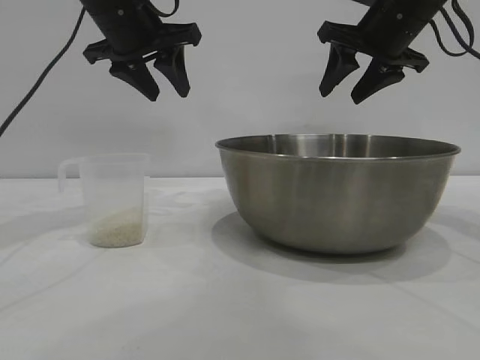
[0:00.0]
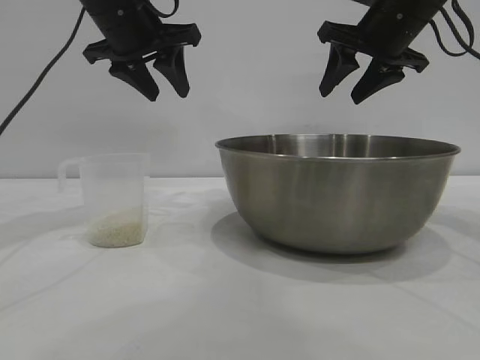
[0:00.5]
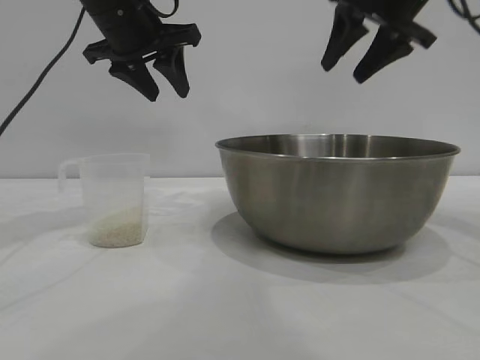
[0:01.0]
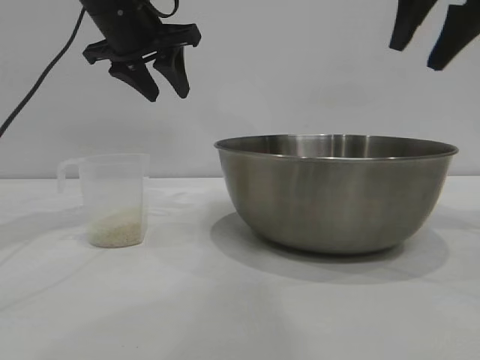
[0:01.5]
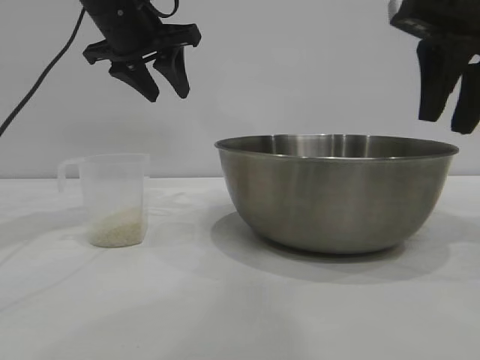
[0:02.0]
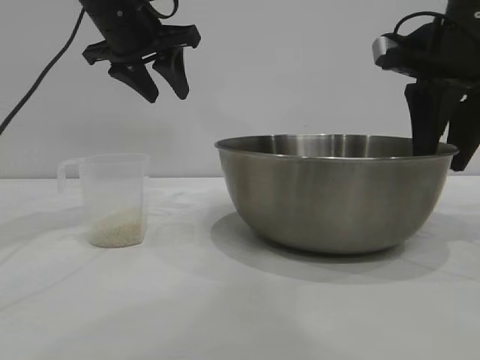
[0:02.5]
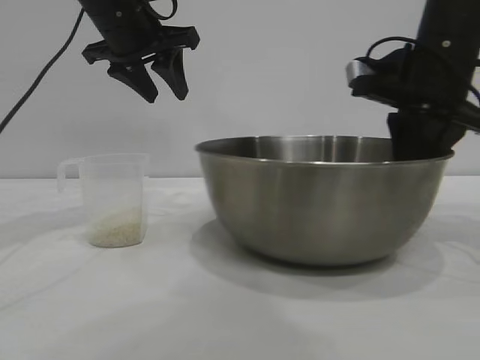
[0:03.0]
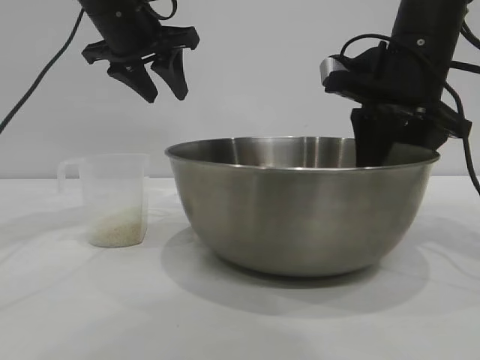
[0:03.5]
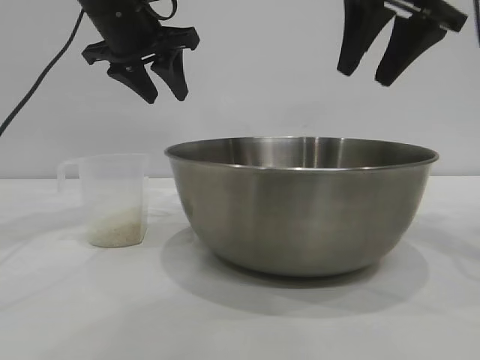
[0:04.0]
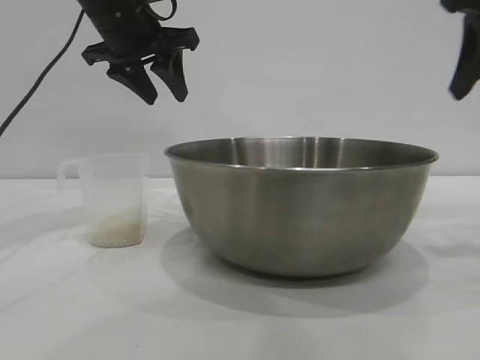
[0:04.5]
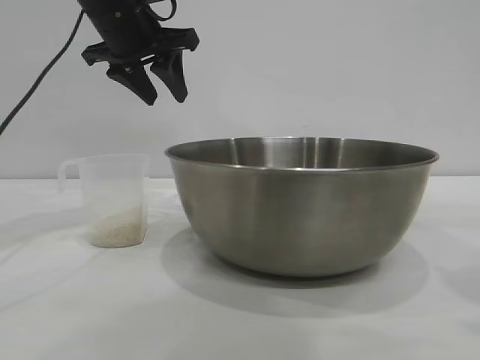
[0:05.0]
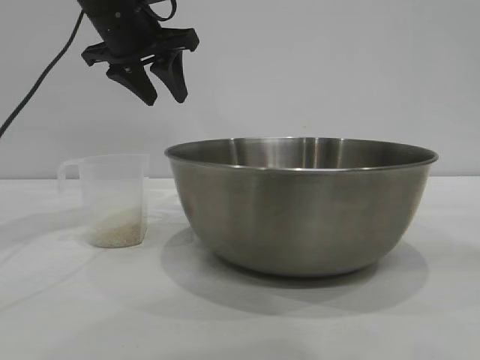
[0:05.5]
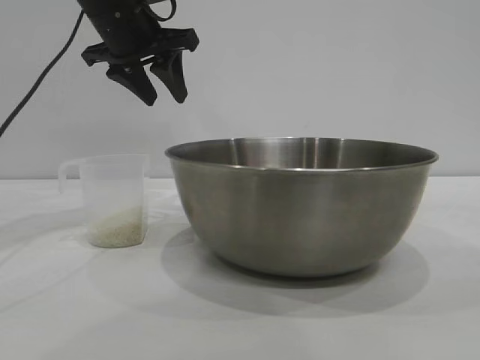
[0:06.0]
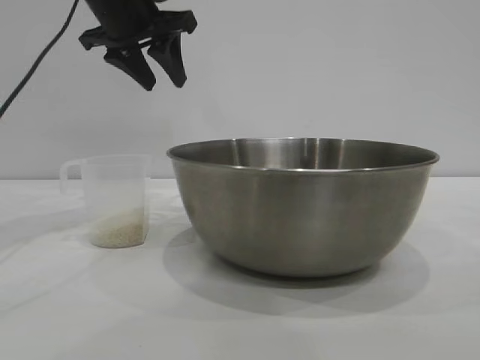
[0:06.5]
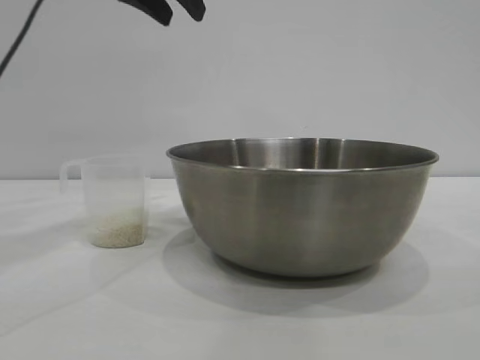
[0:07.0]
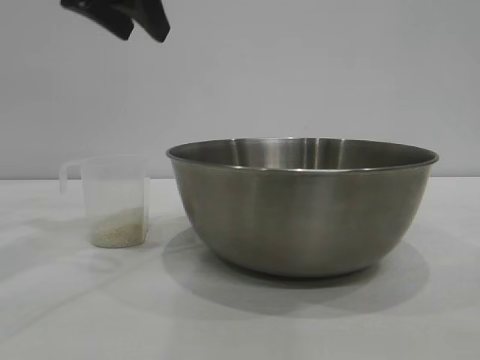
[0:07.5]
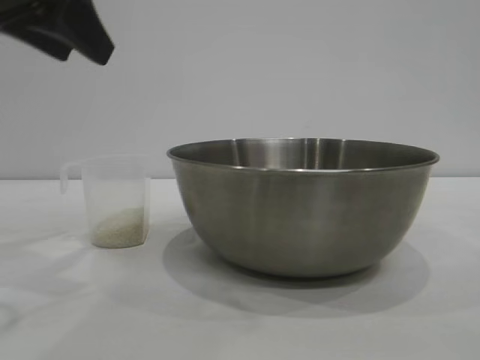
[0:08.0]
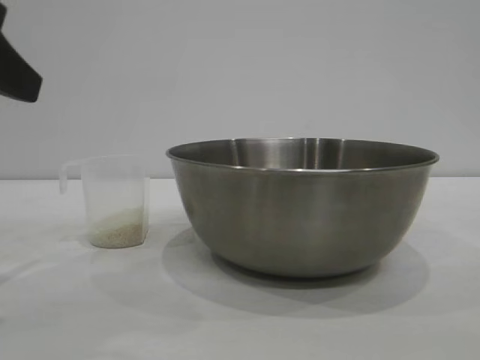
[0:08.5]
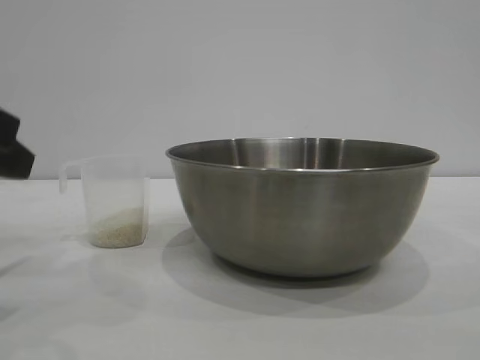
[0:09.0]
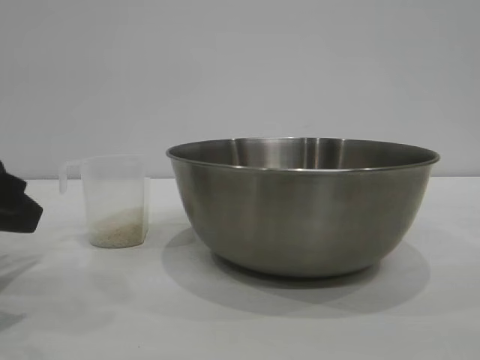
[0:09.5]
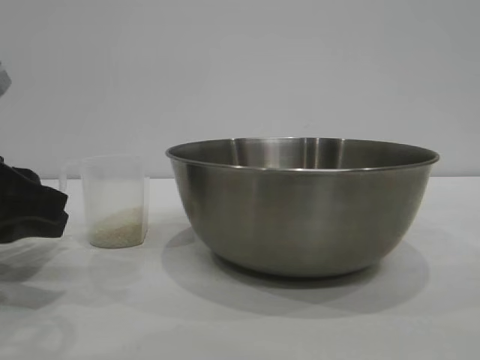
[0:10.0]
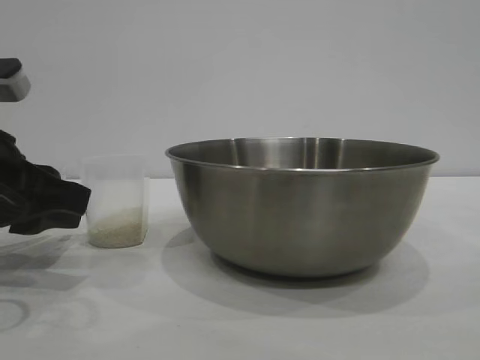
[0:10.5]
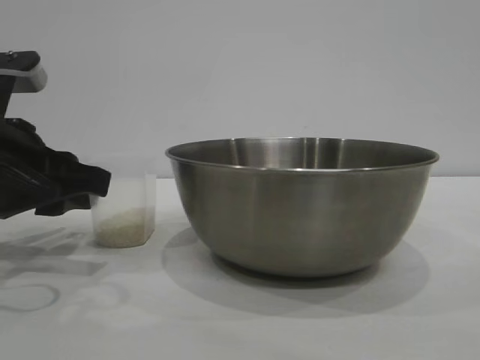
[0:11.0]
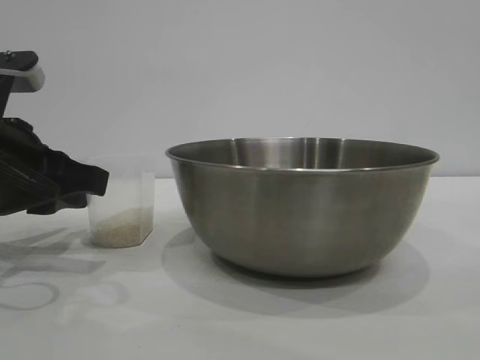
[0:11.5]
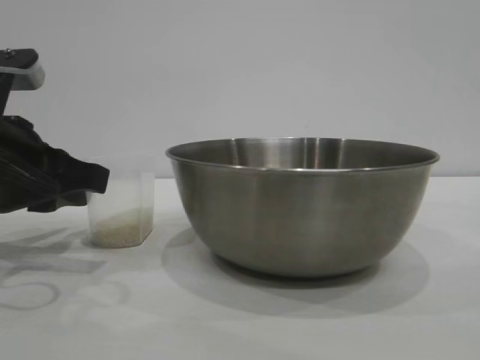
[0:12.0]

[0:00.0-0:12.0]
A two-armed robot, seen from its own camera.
Task of the whole recording: the right gripper grasp the rice container and place it in the center of the table, the left gripper grasp the rice scoop and pour the rice into the rice container.
Step, 0:00.0 to 0:03.5: Move the bowl to the center of view with the right gripper.

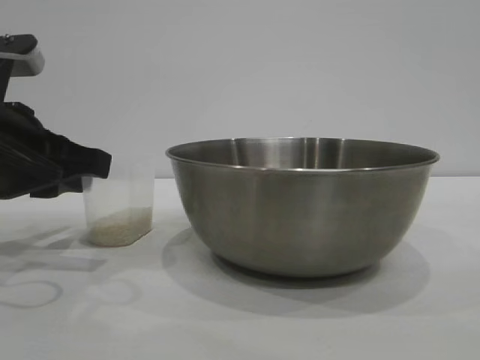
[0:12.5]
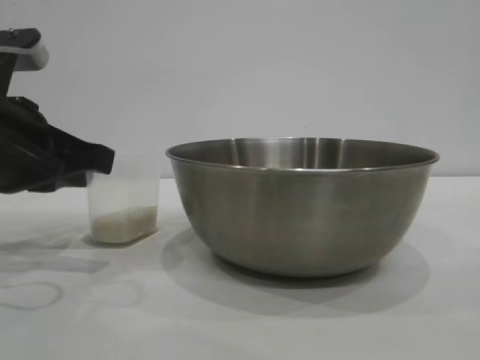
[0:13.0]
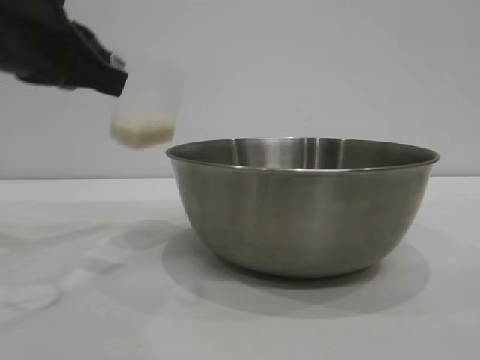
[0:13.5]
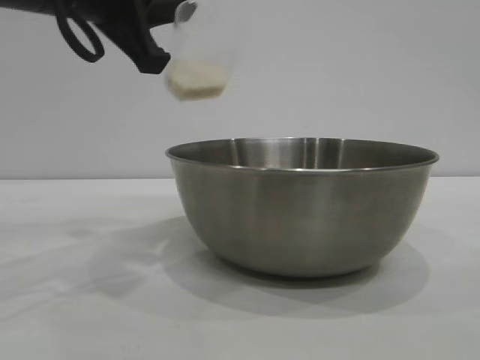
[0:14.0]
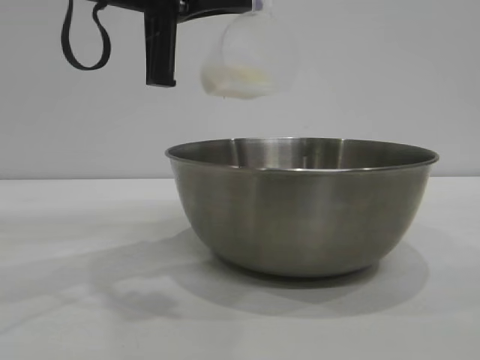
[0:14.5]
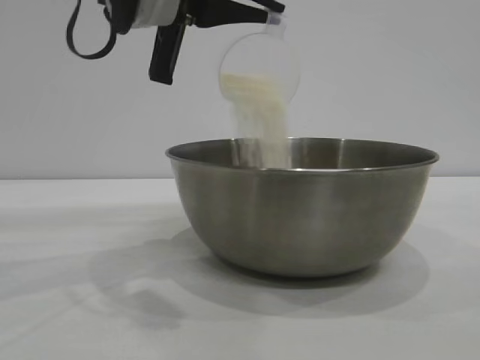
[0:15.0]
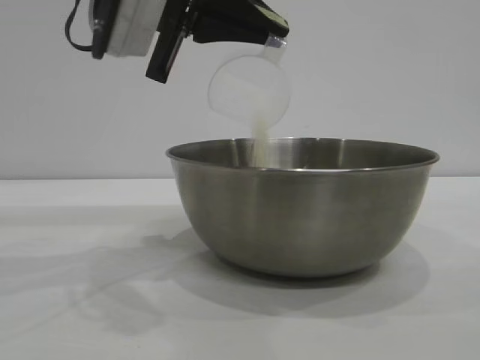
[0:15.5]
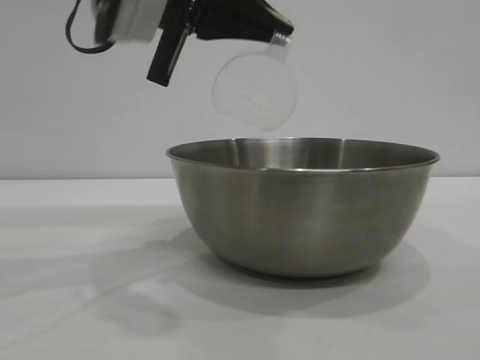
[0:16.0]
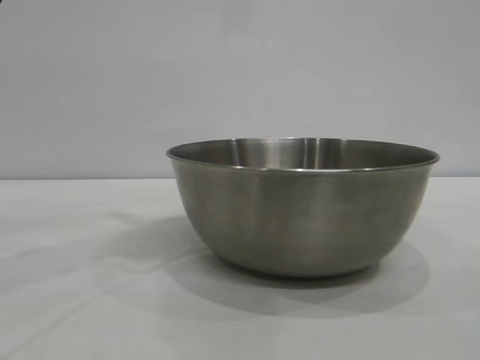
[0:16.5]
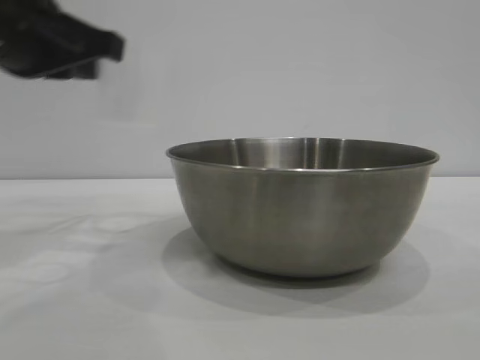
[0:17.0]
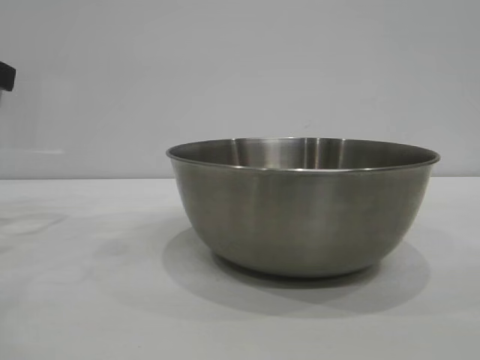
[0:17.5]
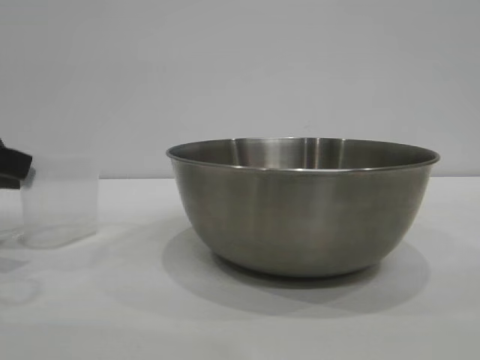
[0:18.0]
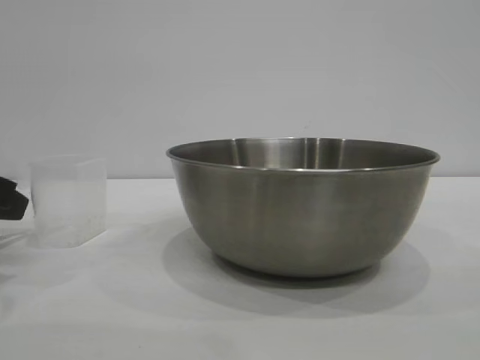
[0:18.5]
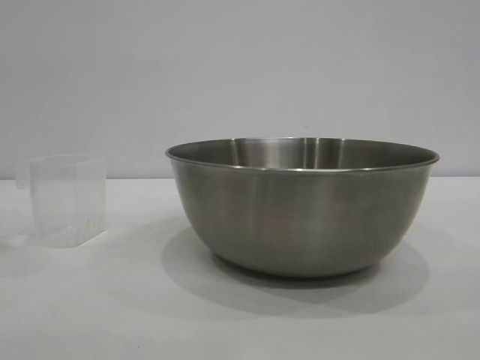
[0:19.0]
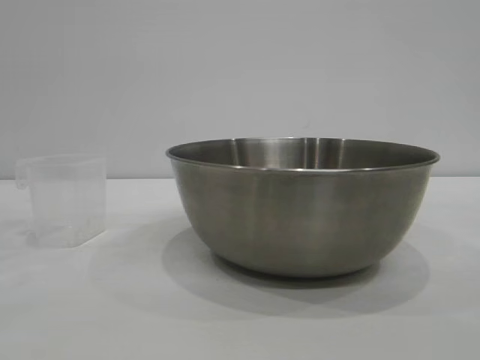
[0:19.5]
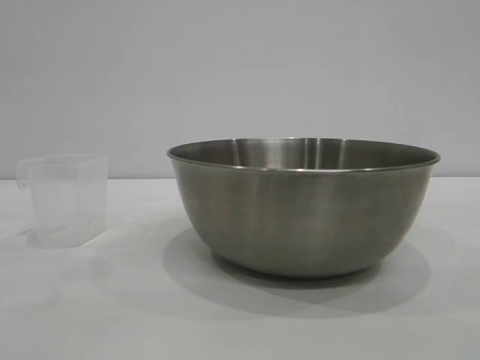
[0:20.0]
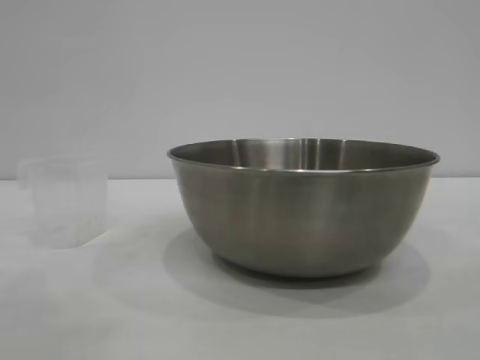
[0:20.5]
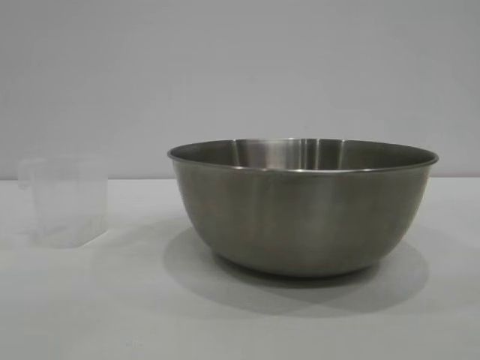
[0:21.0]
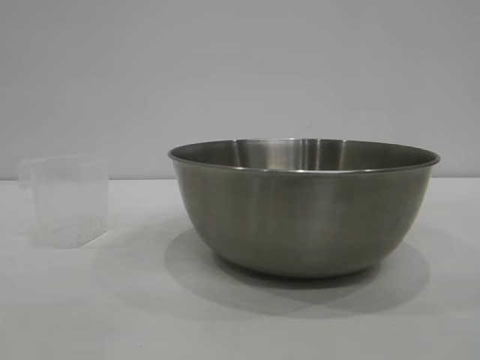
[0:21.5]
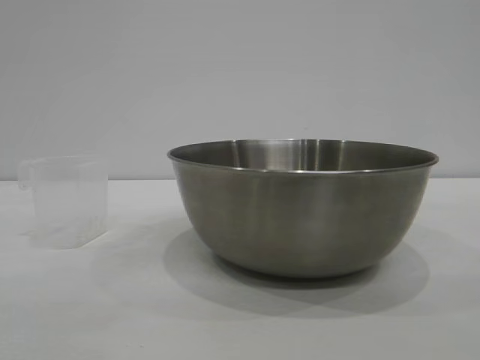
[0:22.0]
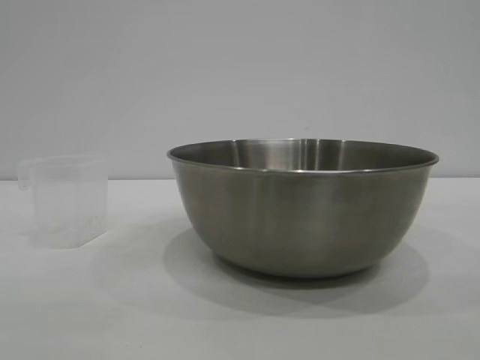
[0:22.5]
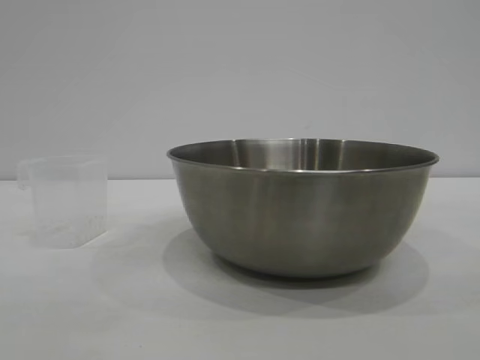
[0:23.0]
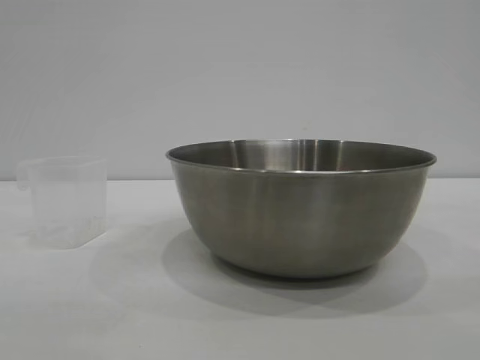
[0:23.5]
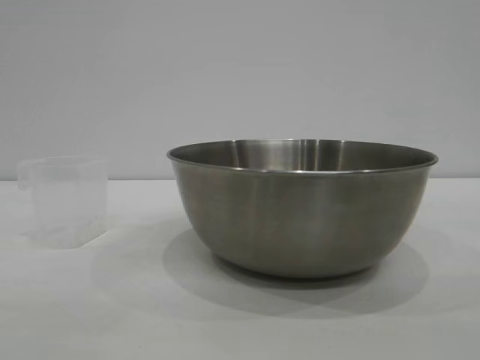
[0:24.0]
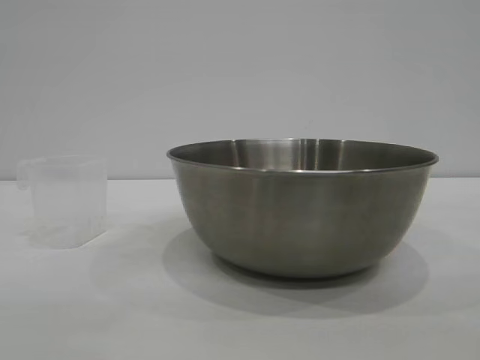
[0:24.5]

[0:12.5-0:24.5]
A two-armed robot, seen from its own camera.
Task of the whole recording: the right gripper grasp the rice container and place it in the center of the table, the left gripper grasp the rice scoop and pour the rice into the rice container.
Step, 0:13.5 to 0:15.5: Pour the rice from the cup into the bowl with the left gripper.
Step, 0:16.0 to 0:18.5: Place the cup on the table with the left gripper.
